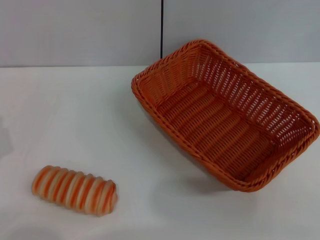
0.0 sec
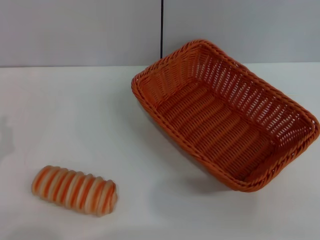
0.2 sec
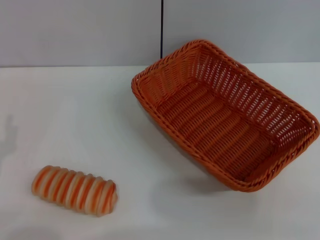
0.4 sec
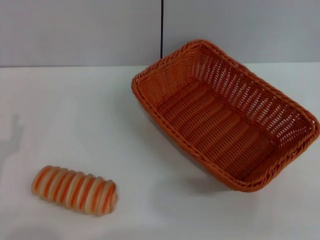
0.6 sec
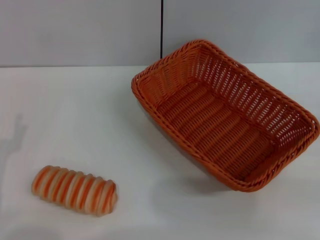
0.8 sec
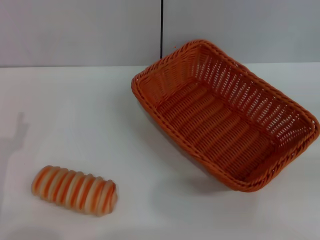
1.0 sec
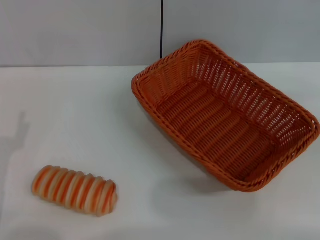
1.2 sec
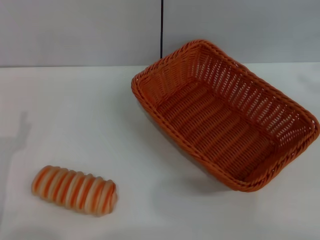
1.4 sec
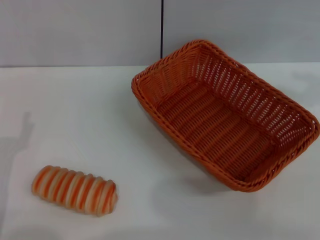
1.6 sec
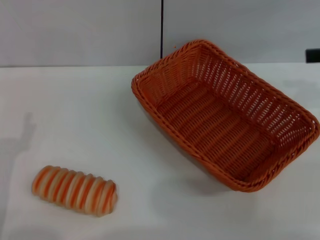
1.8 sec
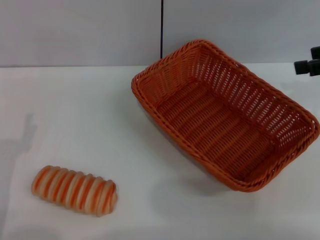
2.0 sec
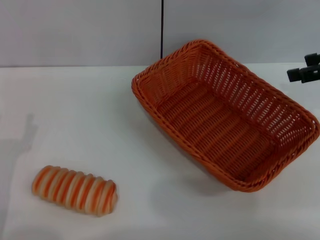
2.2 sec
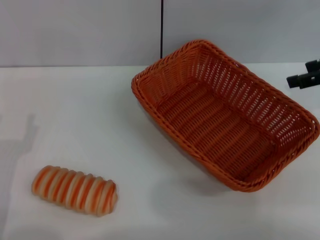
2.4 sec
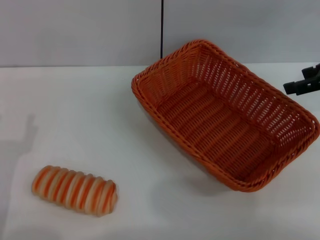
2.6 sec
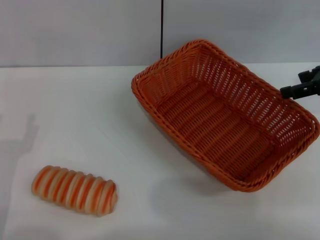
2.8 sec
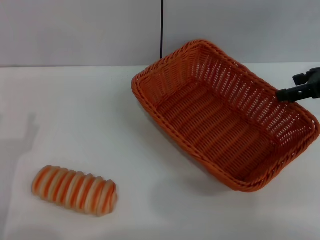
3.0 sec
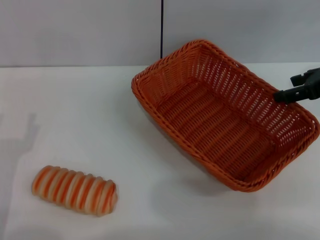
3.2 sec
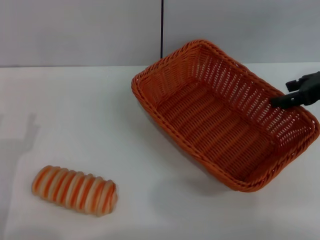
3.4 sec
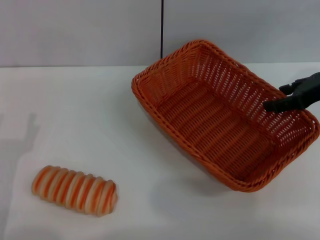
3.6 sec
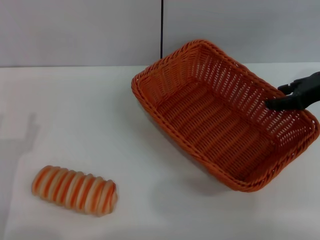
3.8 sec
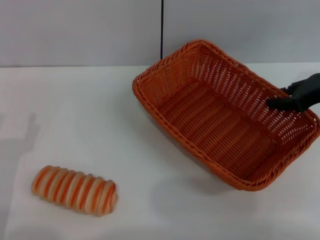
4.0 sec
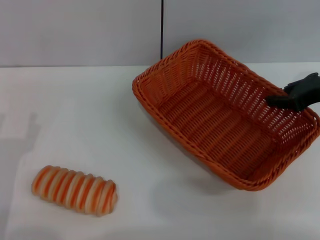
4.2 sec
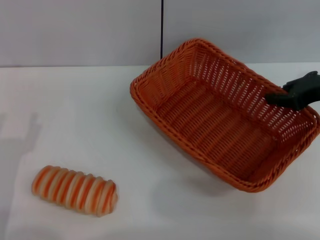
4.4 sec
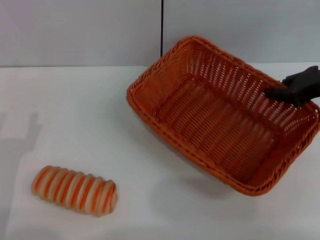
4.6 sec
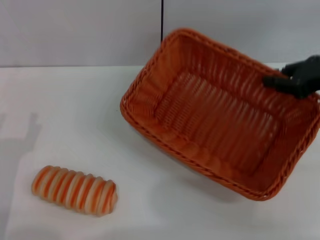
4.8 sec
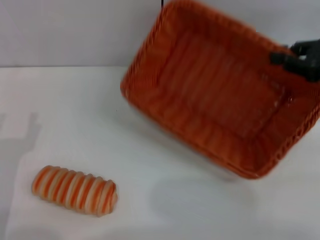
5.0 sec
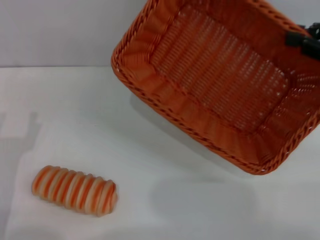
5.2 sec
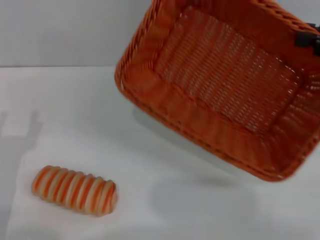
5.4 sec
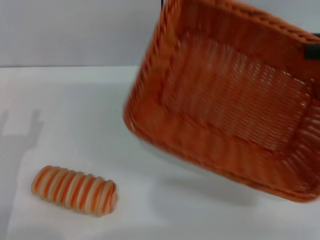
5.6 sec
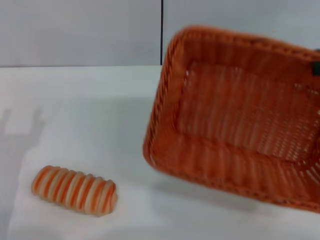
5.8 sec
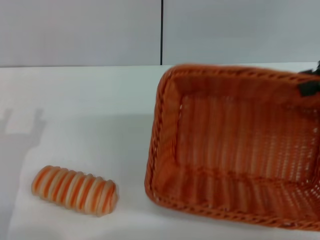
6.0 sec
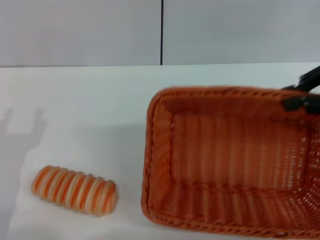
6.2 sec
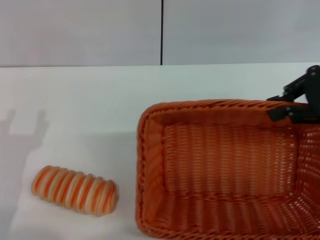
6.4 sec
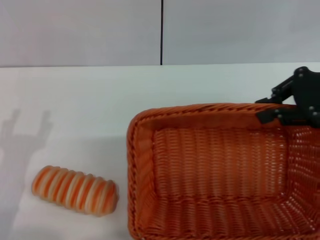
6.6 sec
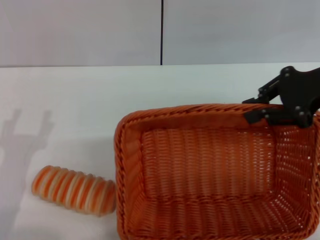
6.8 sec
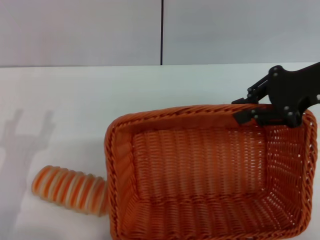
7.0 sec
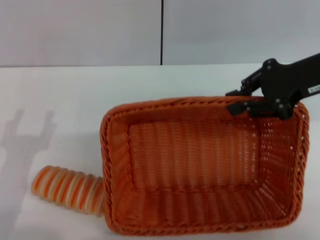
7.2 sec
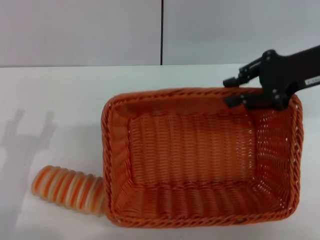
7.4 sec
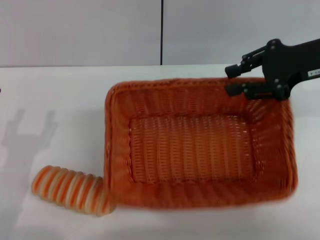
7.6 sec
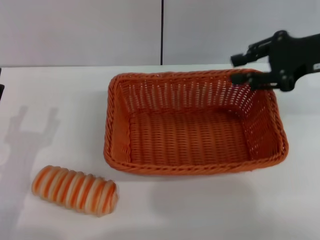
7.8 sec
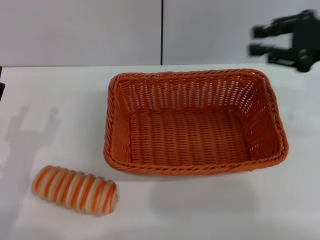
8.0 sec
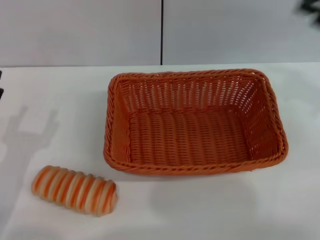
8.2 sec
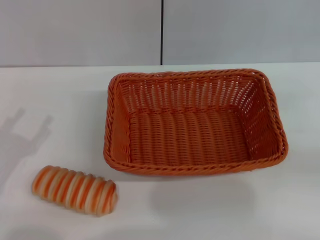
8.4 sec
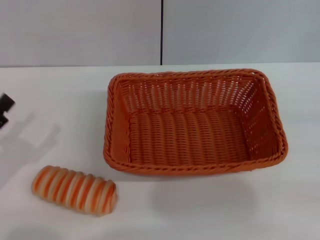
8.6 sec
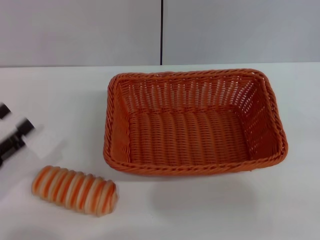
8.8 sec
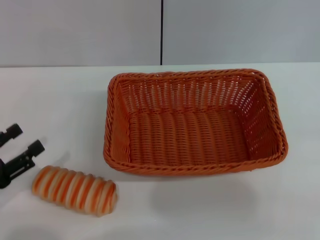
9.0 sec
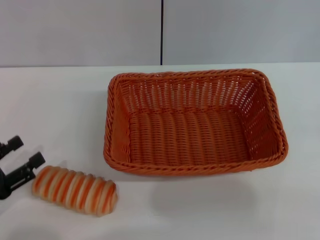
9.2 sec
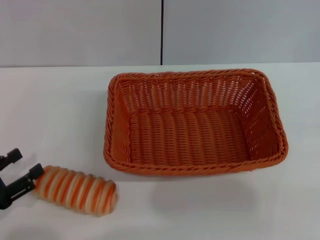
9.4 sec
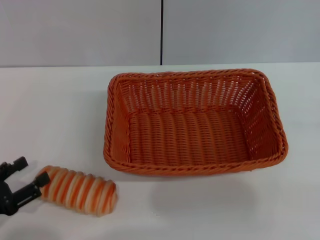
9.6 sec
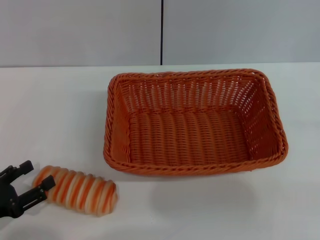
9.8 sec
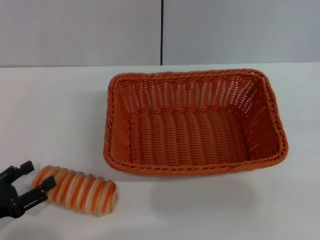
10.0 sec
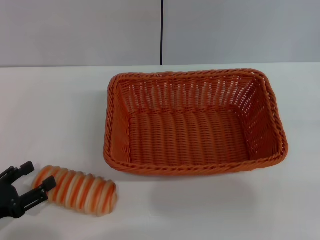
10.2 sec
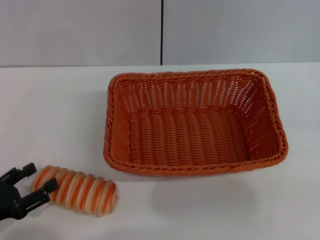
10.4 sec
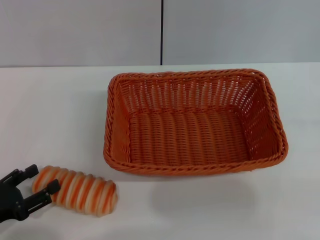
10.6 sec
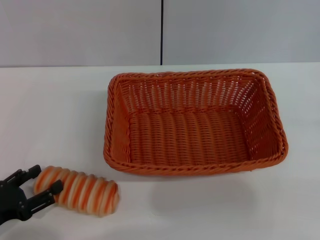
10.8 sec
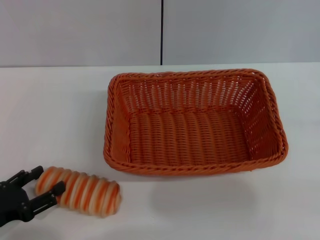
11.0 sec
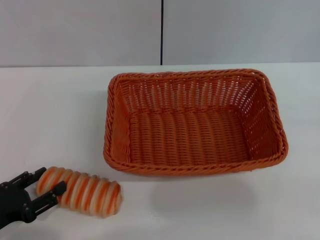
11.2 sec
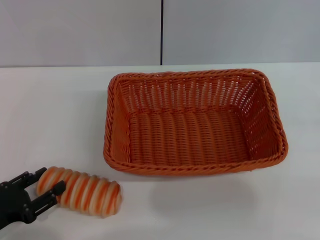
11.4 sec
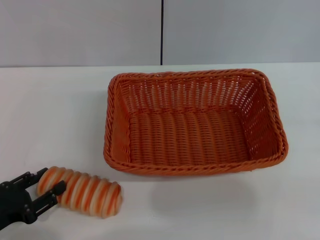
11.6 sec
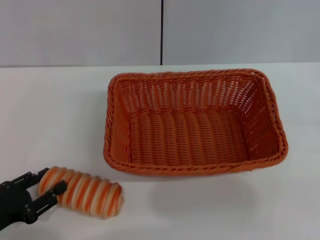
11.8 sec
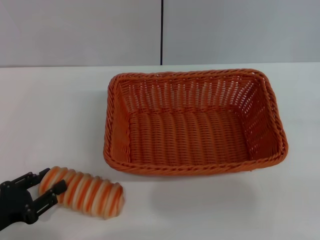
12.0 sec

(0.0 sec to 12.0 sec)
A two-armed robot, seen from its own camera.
Step, 0.0 sec - 4.8 sec: Pick up the light basket with the right gripper.
Step, 5.0 sec - 7.6 sec: Place the light basket in the center of view with the right gripper.
1.6 sec - 3.0 sec: The right gripper heads downward and to the left, covering roughly 10 cm.
3.0 sec - 4.4 sec: The right gripper closes.
4.4 sec - 6.0 sec: The right gripper moves upward, some 10 cm.
6.0 sec - 7.6 sec: The right gripper moves to the left, some 5 cm.
7.6 sec - 9.0 sec: The left gripper heads to the left, covering about 10 cm; the right gripper moves to the right, backward and downward, some 30 cm.
9.0 sec - 10.4 sec: The grippers move only a little.
10.4 sec - 12.0 sec: The left gripper closes its fingers.

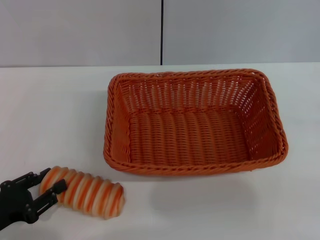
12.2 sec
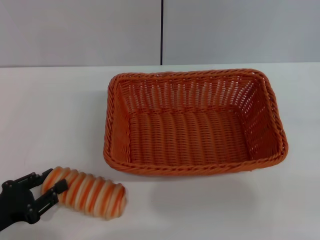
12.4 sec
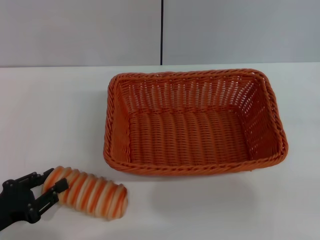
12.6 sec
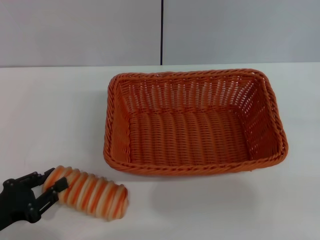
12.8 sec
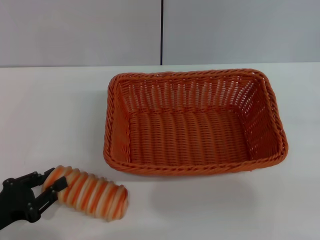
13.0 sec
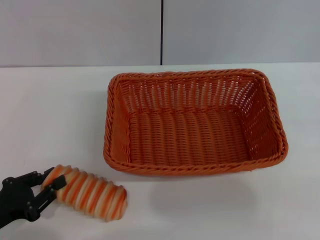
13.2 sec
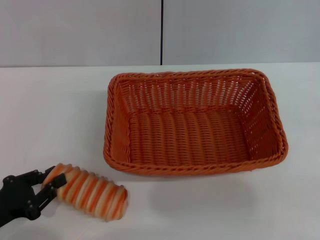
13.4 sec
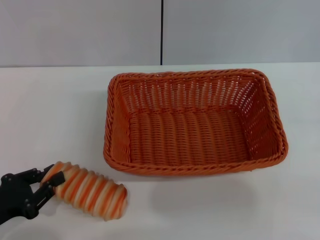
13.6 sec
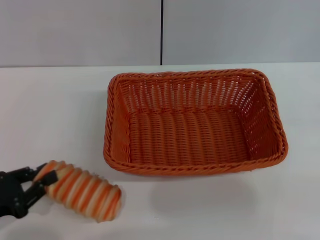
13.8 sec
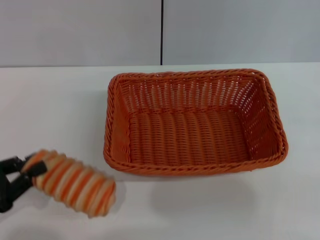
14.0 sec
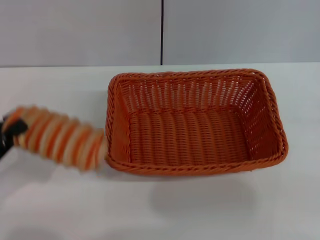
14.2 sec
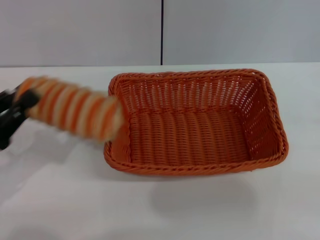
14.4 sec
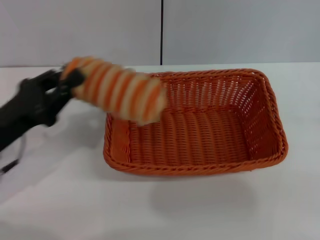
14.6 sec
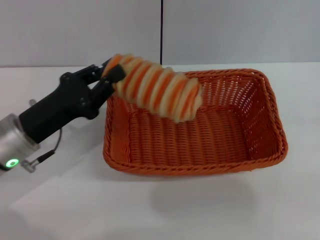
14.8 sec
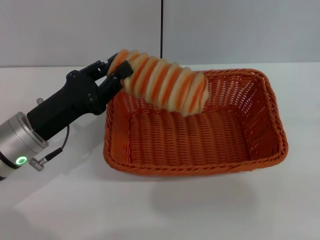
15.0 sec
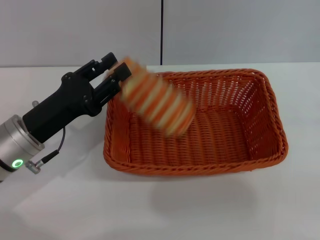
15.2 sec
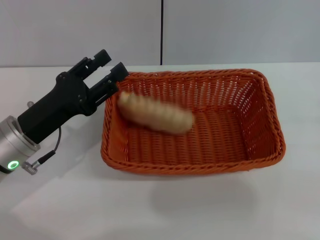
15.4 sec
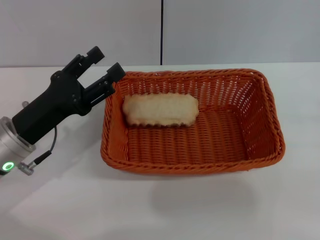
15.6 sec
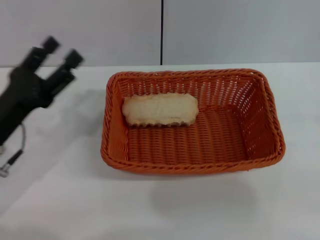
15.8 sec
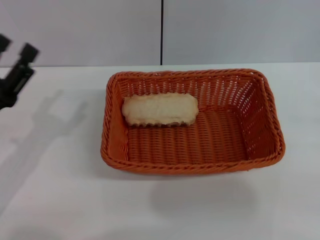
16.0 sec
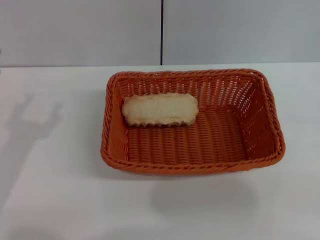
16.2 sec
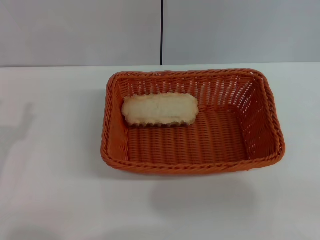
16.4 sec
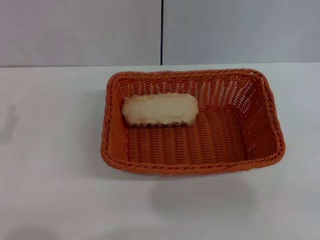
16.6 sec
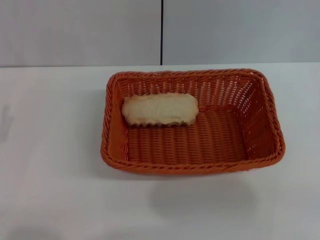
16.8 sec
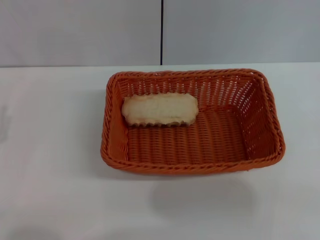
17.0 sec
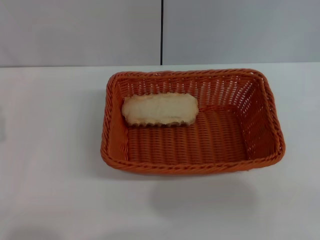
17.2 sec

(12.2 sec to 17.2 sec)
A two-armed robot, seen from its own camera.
Step, 14.2 sec - 15.6 sec: Place the long bread into the light basket with the left gripper.
12.2 sec - 13.8 sec: The left gripper closes up.
13.8 sec - 15.6 sec: The left gripper shifts roughly 15 cm to the right and forward, and opens up.
15.6 sec - 17.2 sec: The left gripper is displaced to the left and backward by about 10 cm.

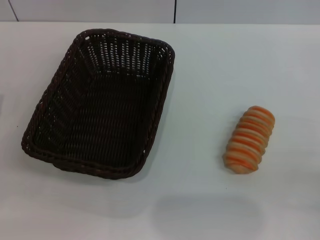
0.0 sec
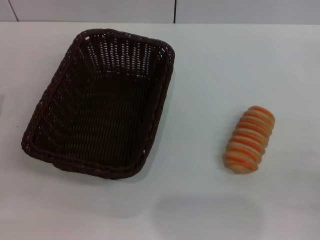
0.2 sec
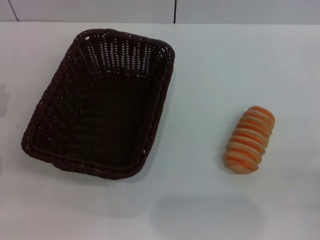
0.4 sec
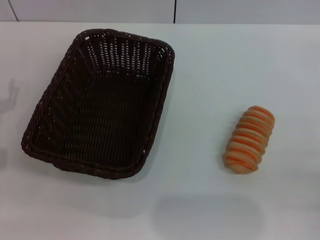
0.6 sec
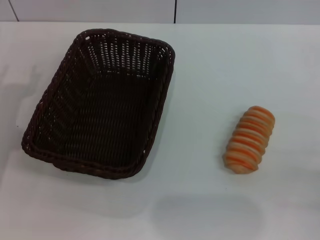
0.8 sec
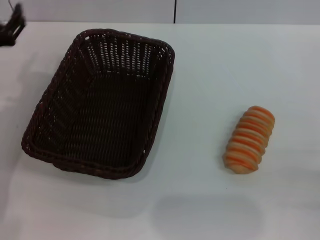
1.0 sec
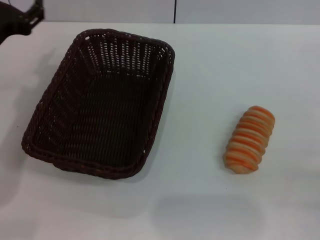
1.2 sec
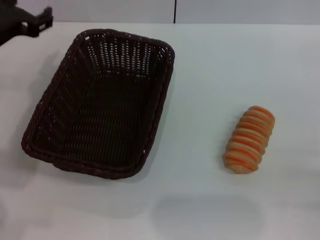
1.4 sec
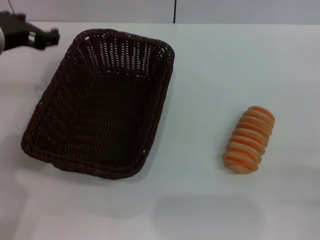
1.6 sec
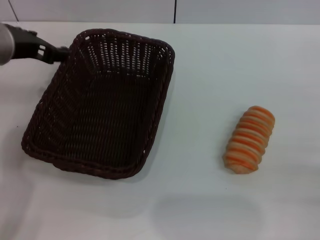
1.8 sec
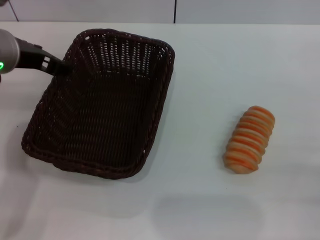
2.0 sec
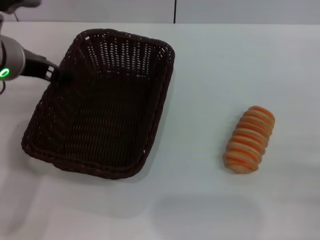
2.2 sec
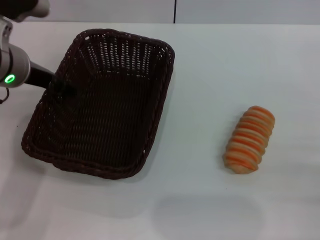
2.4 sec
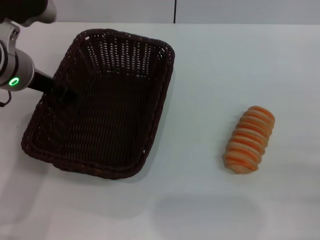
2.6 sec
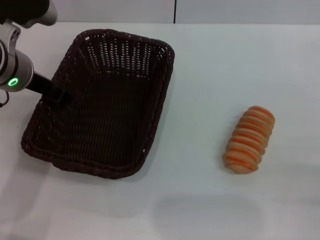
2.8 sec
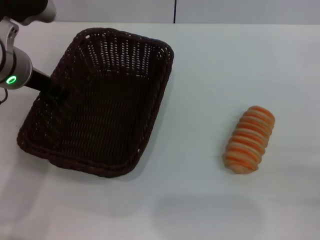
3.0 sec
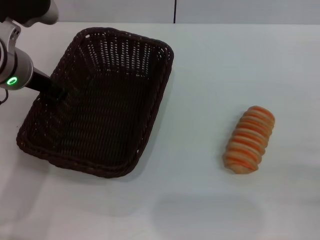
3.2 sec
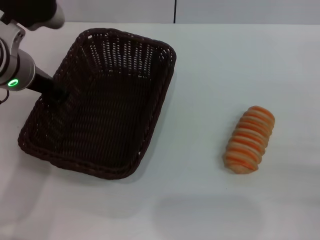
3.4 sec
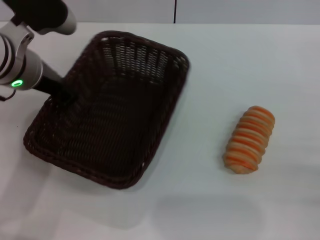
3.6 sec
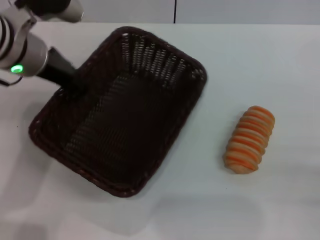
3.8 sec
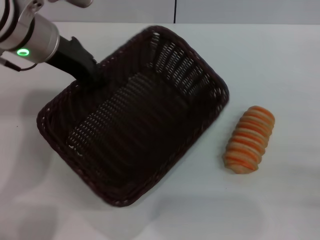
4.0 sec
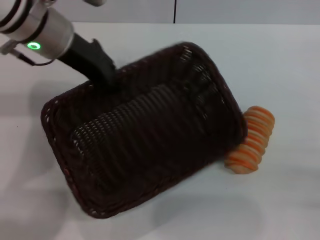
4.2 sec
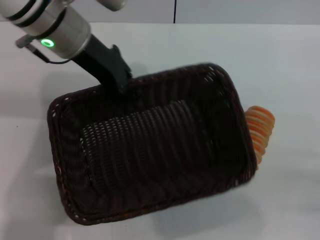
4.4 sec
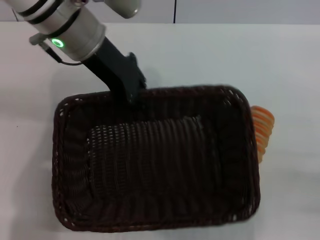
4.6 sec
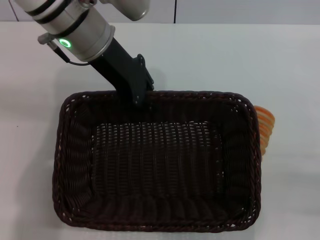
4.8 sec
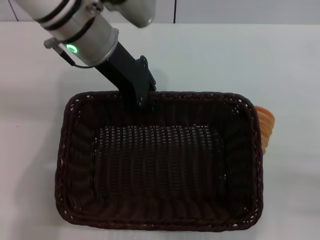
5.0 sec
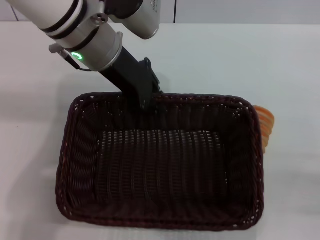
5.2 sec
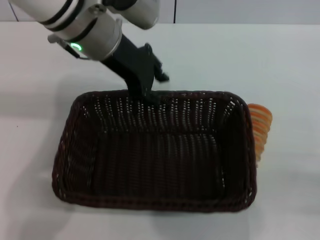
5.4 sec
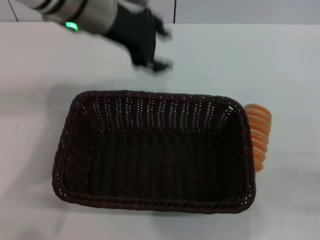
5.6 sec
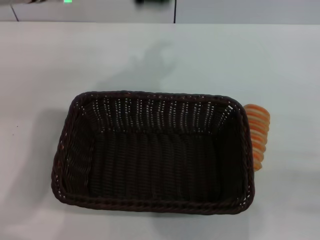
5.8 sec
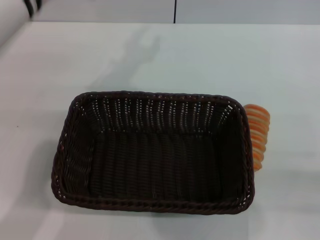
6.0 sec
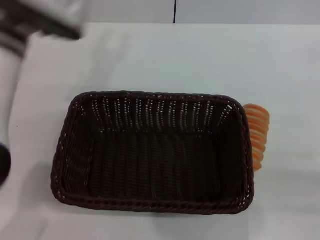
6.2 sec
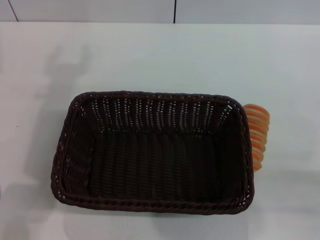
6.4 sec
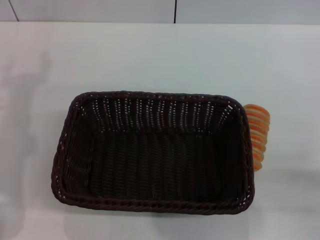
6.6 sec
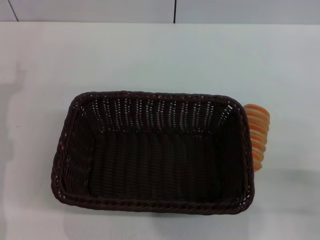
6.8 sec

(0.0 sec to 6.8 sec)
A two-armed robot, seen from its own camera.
Step, 0.0 sec - 3.8 sec: Pick up the dark basket with the left gripper.
Step, 4.2 sec - 5.6 sec: Place the dark basket in the center of view with the left gripper.
0.0 sec - 1.4 sec: The left gripper travels upward, to the right and forward by roughly 20 cm.
2.8 sec - 4.0 sec: The left gripper ends up roughly 5 cm from where it was, and closes.
4.0 sec - 5.4 sec: The left gripper goes some 5 cm to the right.
5.4 sec - 6.8 sec: The left gripper heads to the left, downward and backward, covering roughly 25 cm, and opens up.
